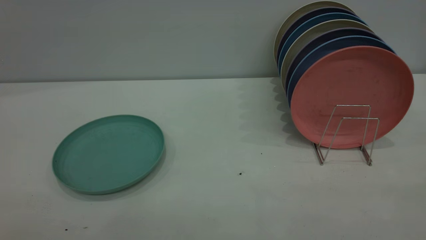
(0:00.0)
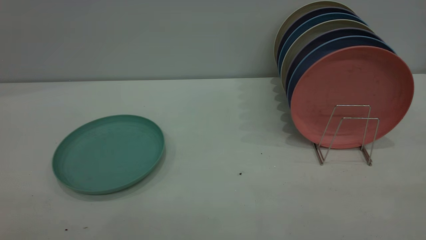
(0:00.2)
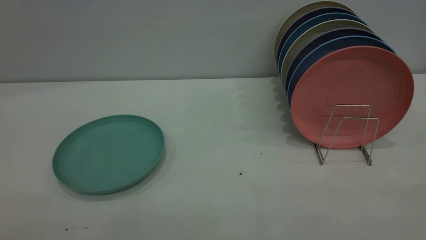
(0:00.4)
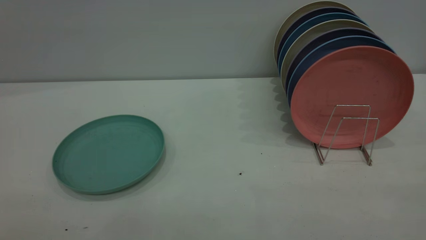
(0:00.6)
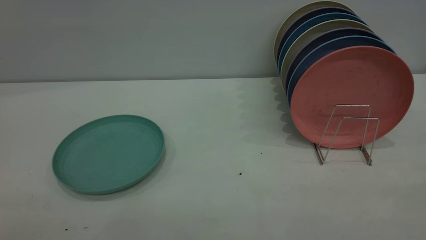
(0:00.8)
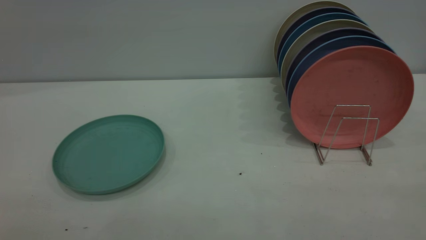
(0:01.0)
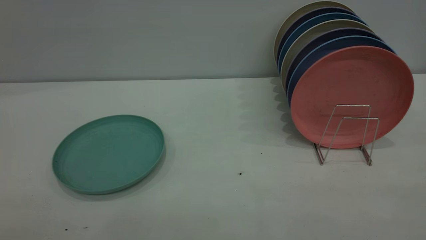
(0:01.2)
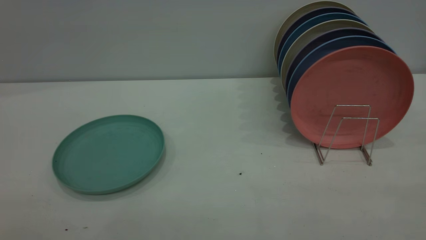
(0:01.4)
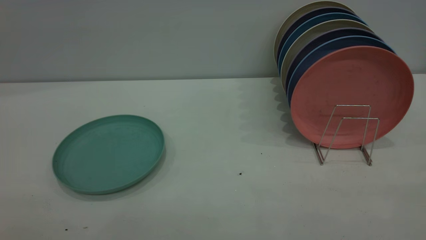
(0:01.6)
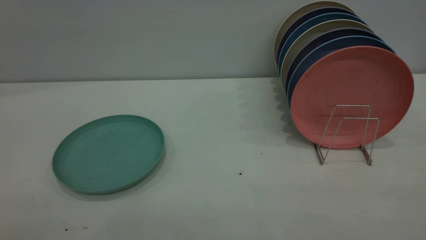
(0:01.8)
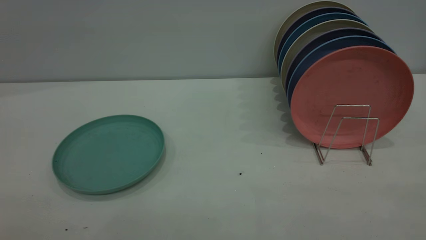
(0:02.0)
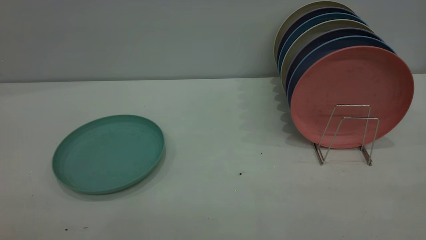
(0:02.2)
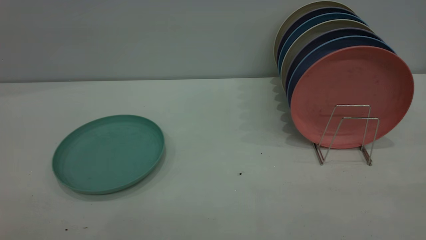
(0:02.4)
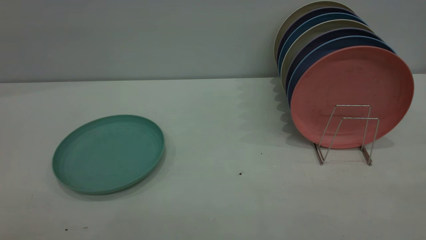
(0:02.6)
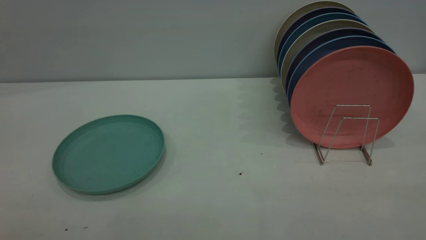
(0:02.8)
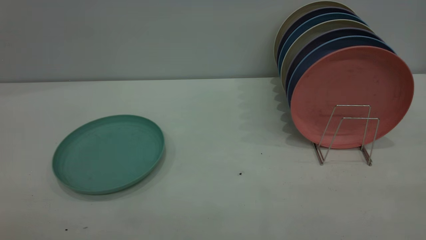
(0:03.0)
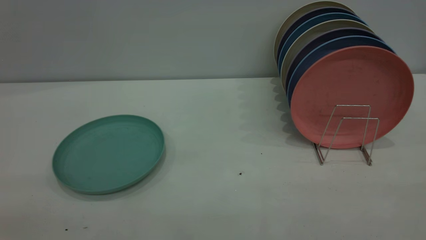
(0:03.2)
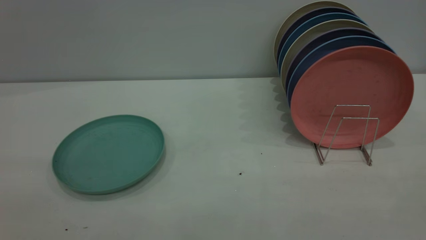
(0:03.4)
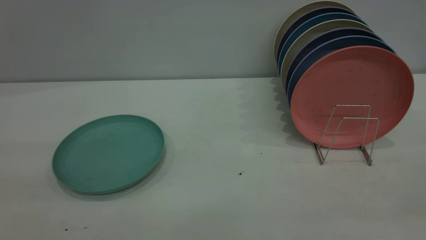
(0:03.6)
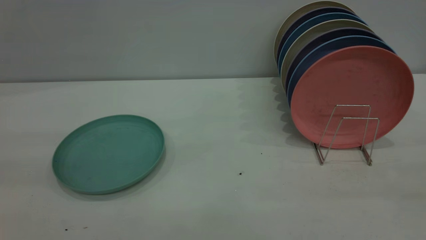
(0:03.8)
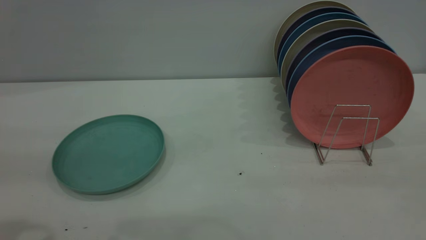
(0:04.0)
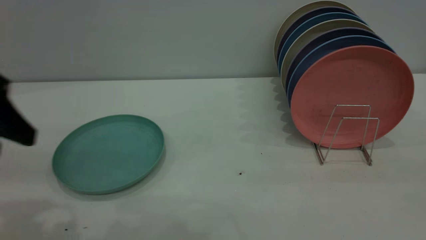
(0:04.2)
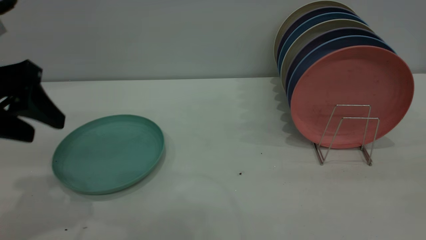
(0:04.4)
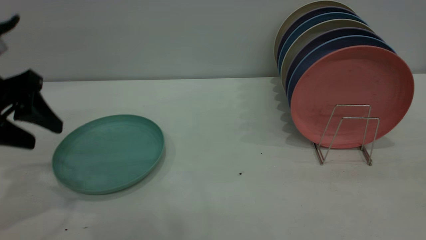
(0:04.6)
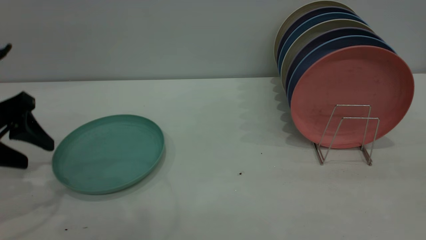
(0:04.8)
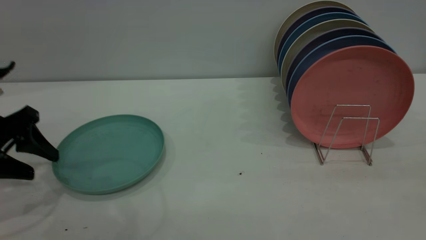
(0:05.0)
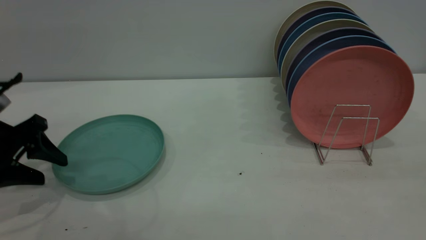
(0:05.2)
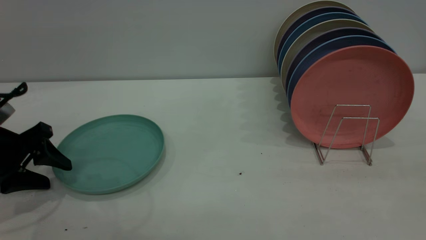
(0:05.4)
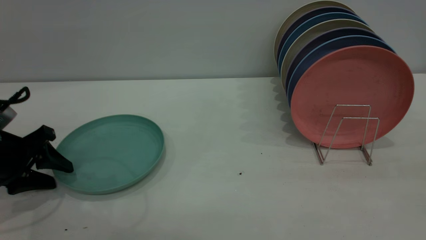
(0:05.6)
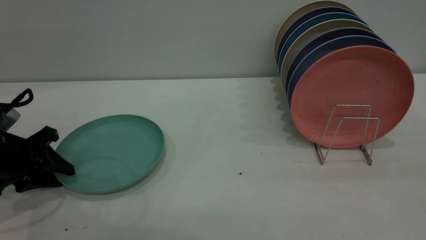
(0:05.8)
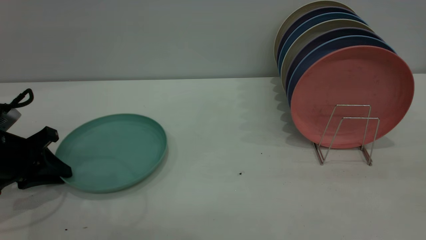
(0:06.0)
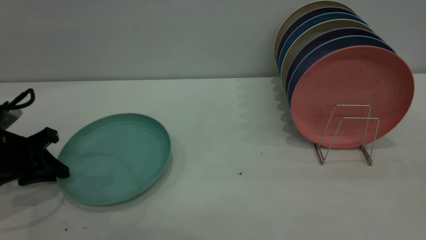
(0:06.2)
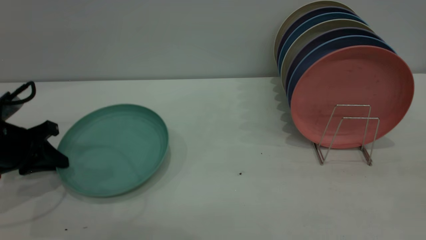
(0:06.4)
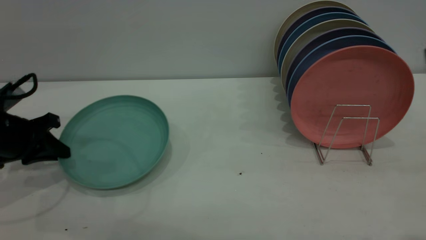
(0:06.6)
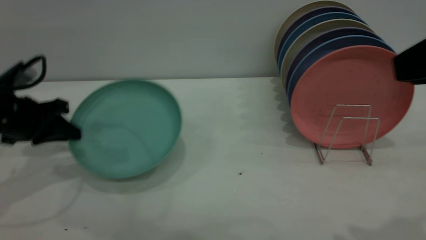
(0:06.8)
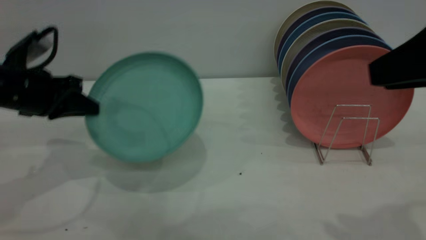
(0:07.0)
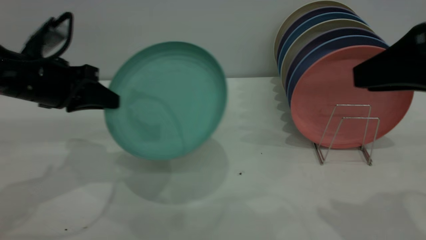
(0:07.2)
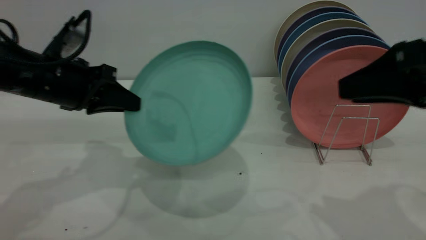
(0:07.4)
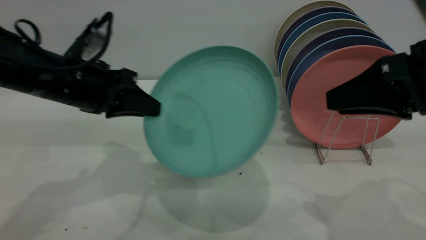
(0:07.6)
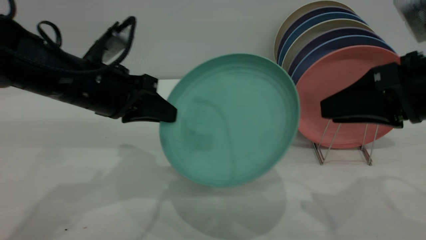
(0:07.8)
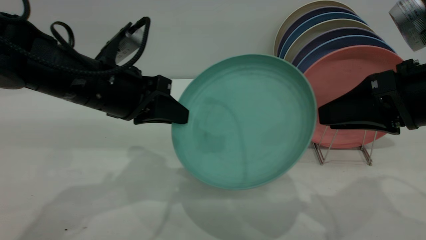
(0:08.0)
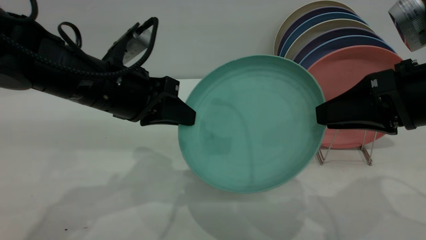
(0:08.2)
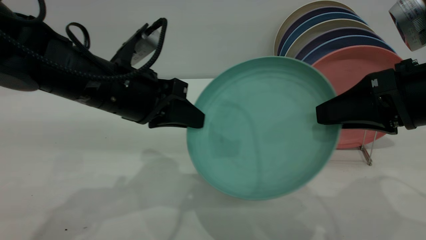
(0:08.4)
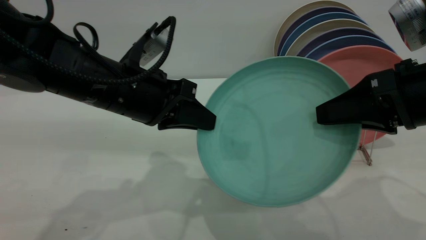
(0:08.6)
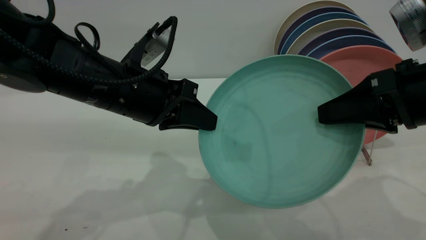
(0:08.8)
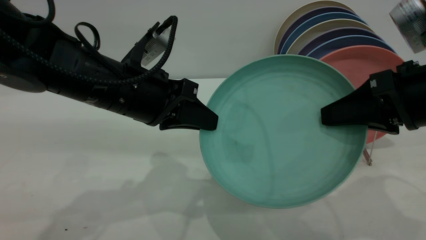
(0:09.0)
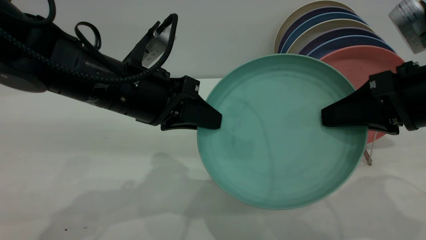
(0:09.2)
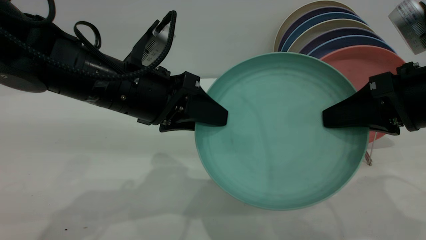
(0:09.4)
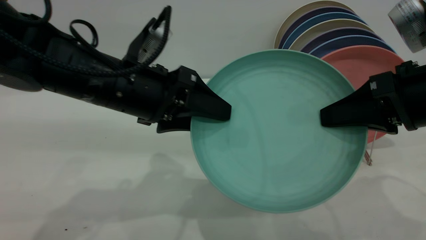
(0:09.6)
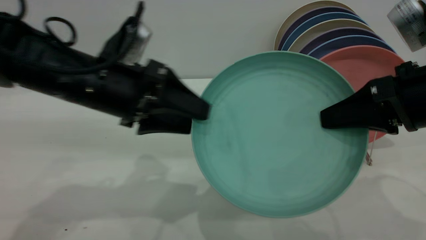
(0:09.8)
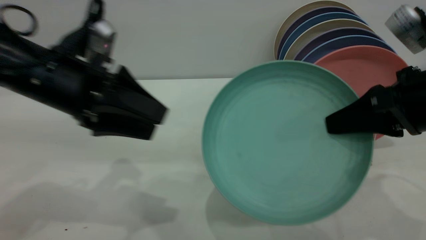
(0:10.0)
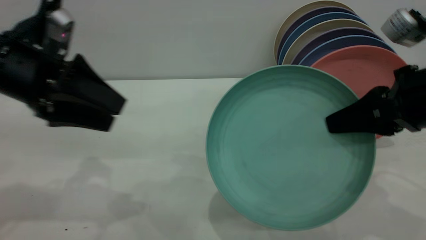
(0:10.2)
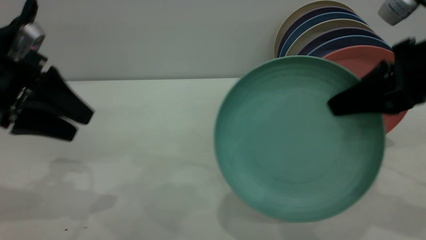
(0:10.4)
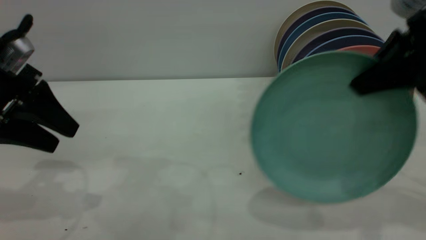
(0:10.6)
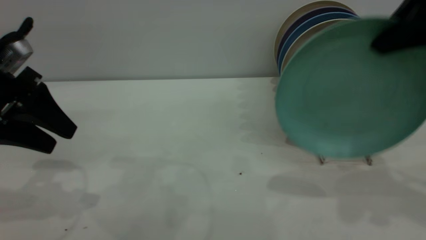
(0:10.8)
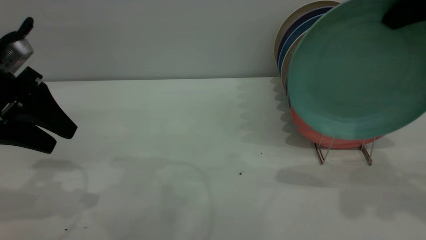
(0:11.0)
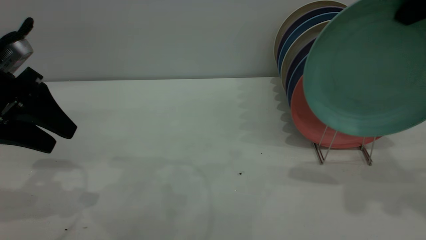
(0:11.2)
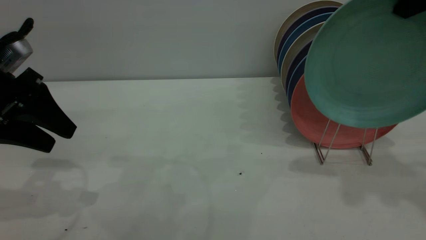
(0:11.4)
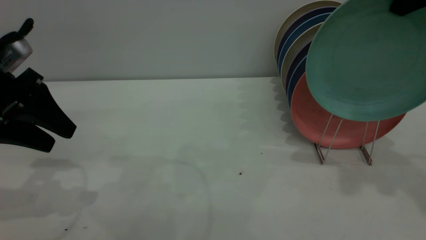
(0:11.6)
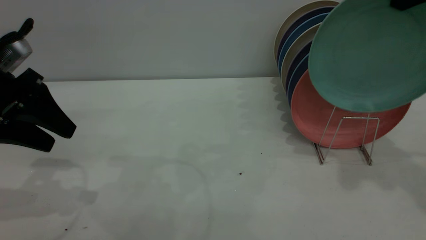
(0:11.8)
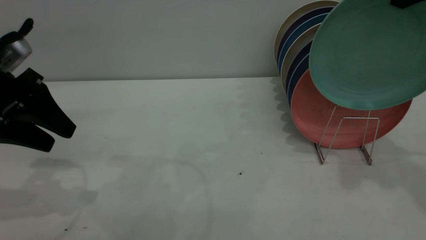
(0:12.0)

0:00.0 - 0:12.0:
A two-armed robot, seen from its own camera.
Task of the whole recording: the left gripper grasp the green plate, the left gripper pass the green plate to the right gripper, and the right gripper place the green plate on the plate rack.
Step, 0:00.0 - 0:06.4: Pick up the plate with the left gripper.
Step, 0:06.6 - 0:09.8: Pass the plate from the left gripper to the right gripper.
0:00.0 - 0:01.6: Both grippers stay put.
0:03.0 - 0:04.4: The left gripper travels forward and downward by about 30 cm.
0:04.4 - 0:06.0: The left gripper is displaced downward by approximately 15 cm, and closes its fingers.
0:06.0 - 0:07.6: The right gripper shifts approximately 20 cm downward and forward. Meanwhile the left gripper goes approximately 15 cm to the right and upward.
0:07.6 - 0:09.0: The right gripper closes. The left gripper shifts some 5 cm to the right.
0:09.0 - 0:10.4: The left gripper is displaced to the left by some 15 cm, and opens up.
0:10.4 - 0:12.0: The right gripper goes roughly 15 cm upward and forward.

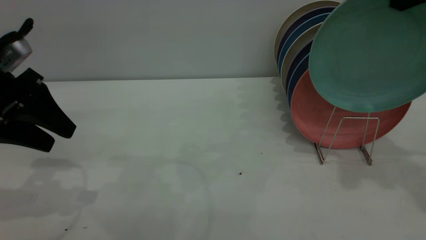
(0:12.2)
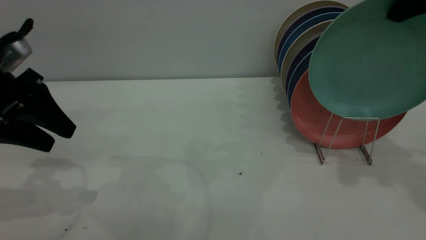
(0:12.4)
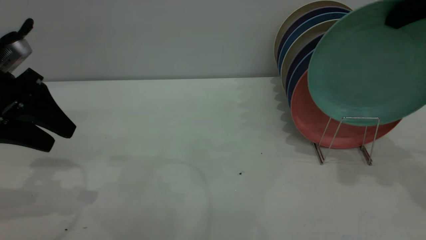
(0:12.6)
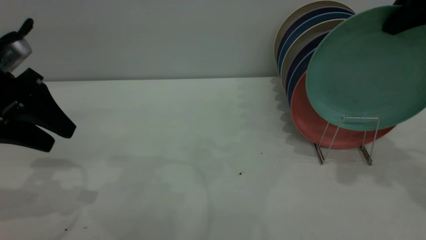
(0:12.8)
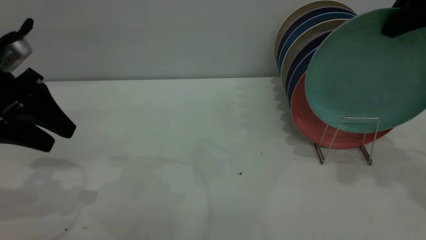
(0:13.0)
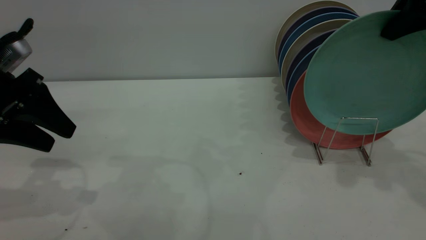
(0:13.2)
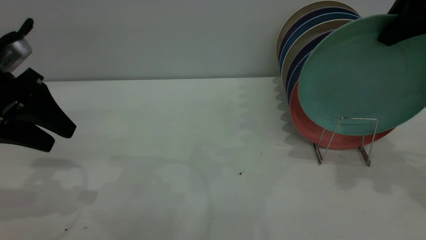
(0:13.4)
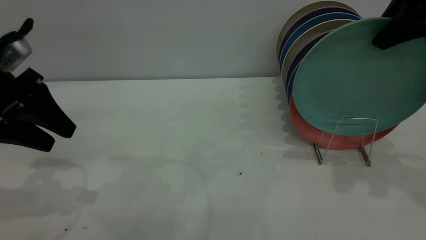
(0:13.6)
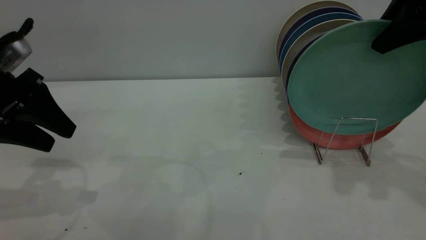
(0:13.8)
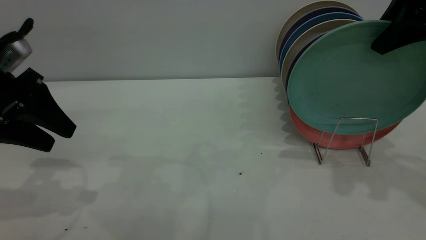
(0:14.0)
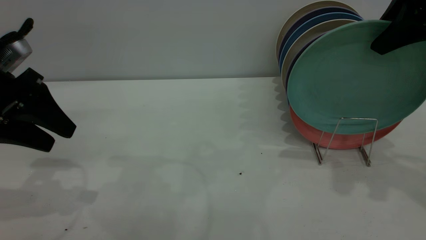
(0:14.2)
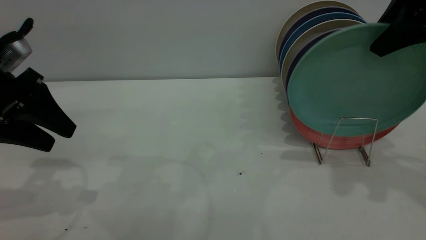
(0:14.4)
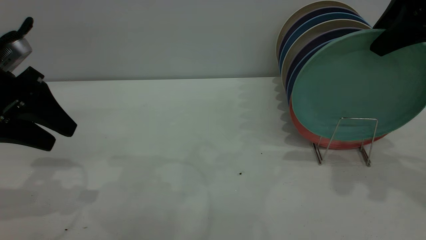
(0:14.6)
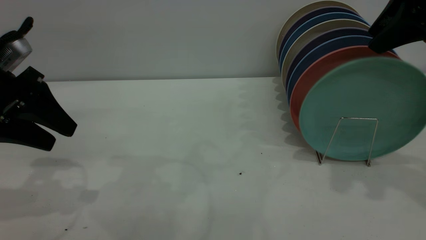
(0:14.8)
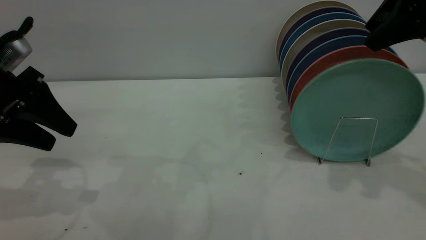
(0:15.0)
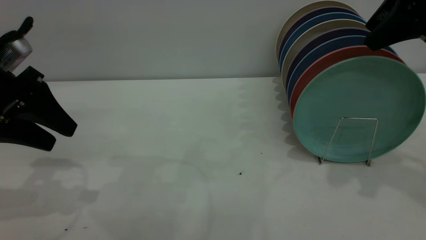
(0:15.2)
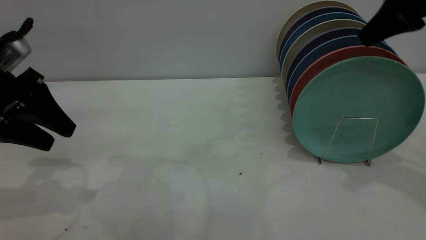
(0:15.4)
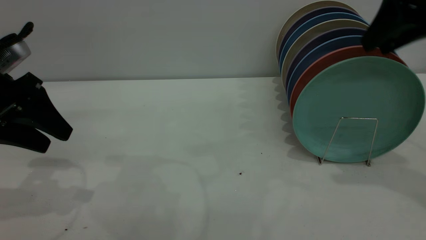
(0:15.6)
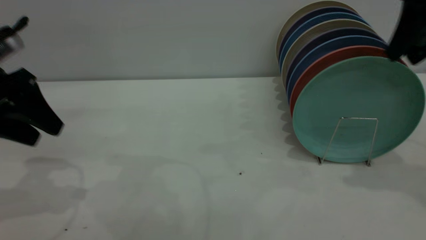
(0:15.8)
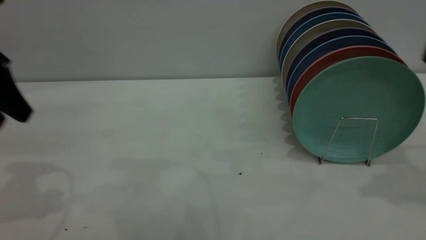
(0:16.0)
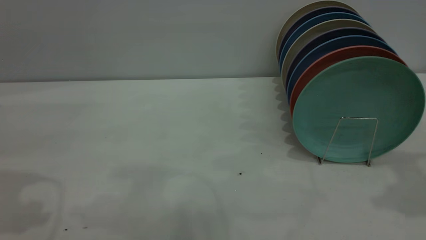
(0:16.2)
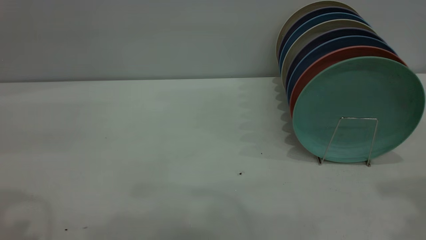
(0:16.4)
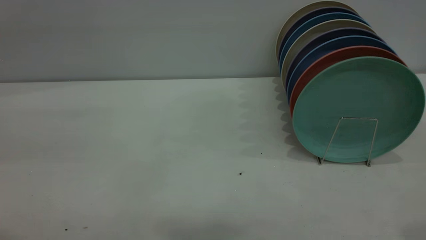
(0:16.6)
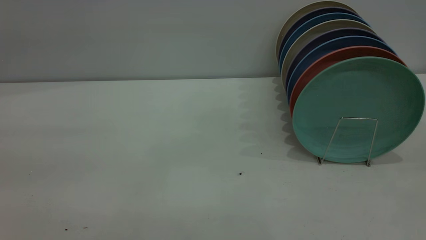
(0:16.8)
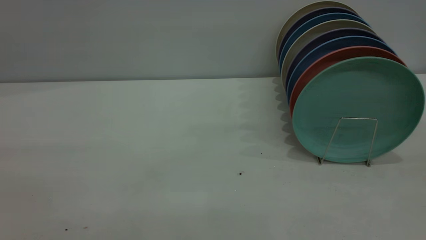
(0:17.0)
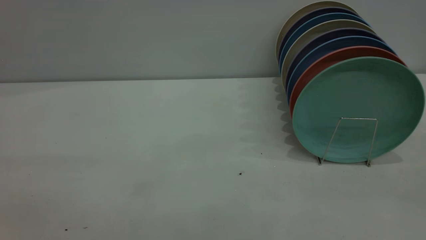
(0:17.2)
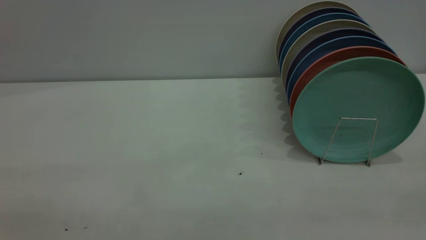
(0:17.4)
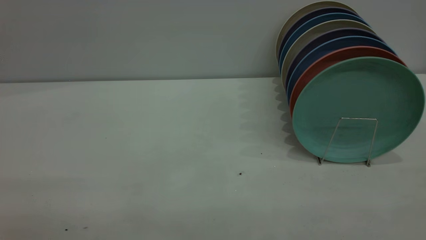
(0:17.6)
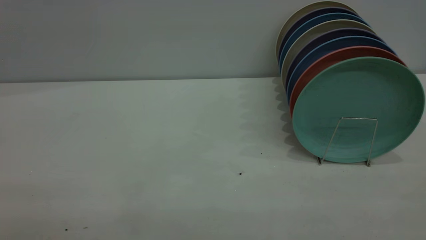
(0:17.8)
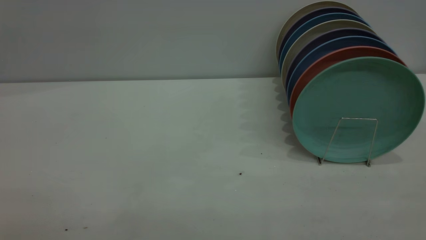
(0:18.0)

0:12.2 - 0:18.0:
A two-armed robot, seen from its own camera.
Task of the whole recording: the left gripper grasp the green plate, the left gripper pass the green plate to the right gripper, and the right gripper place the green plate on the plate rack.
Step, 0:12.2 - 0:15.8: Place the plate on the shelf.
0:12.2 - 0:13.6: The right gripper opens its fingers.
0:13.6 - 0:15.0: The right gripper opens up.
0:15.0 - 0:16.6: The left gripper shifts roughly 25 cm upward and backward; the right gripper shifts approximately 20 cm backward and upward.
